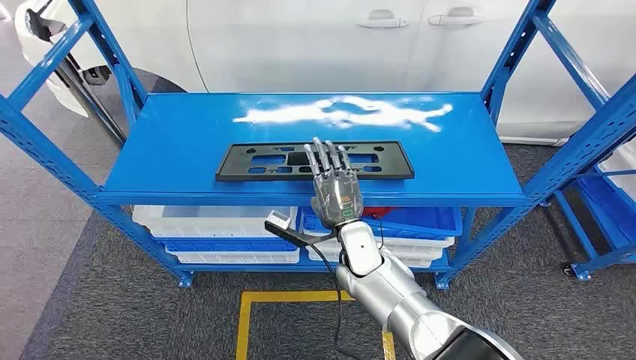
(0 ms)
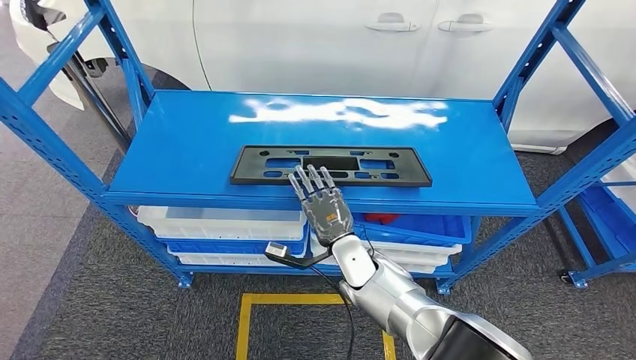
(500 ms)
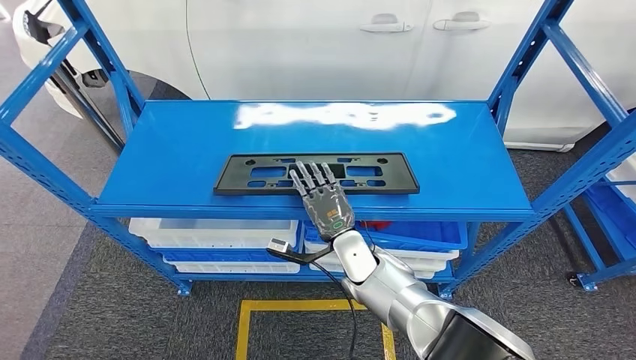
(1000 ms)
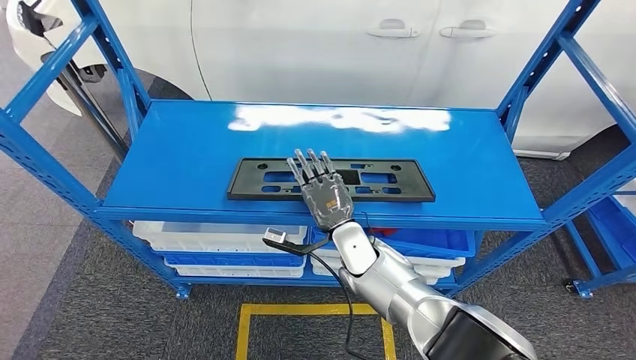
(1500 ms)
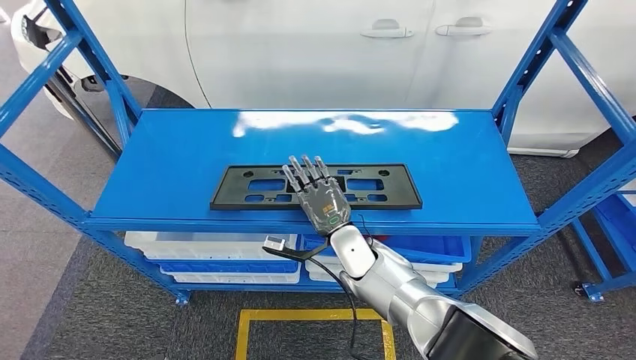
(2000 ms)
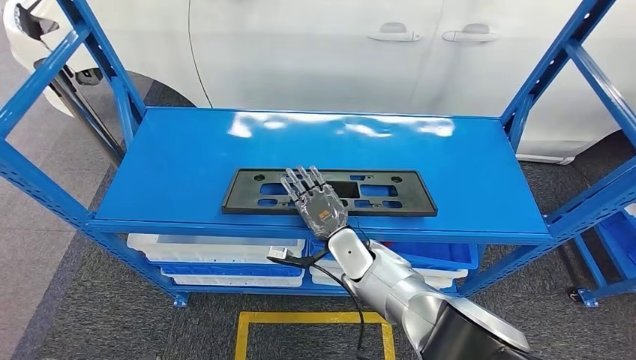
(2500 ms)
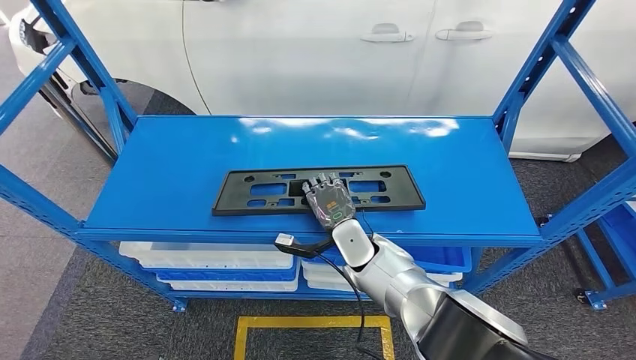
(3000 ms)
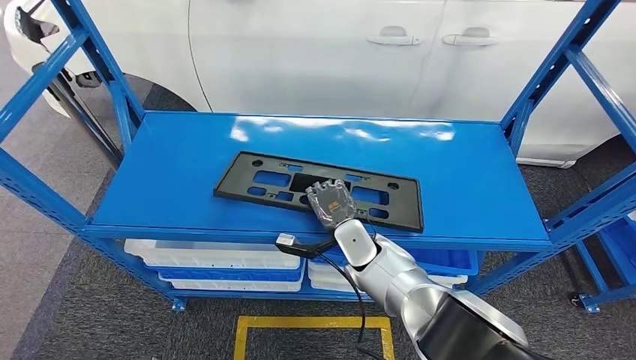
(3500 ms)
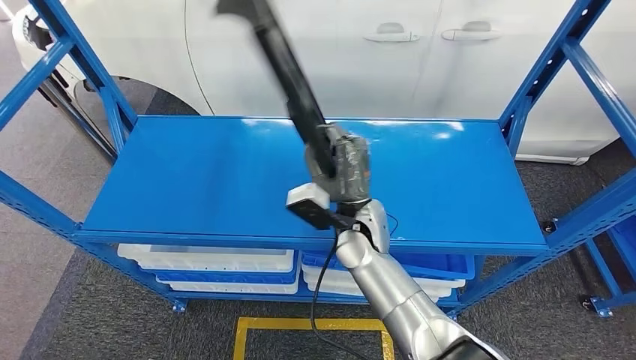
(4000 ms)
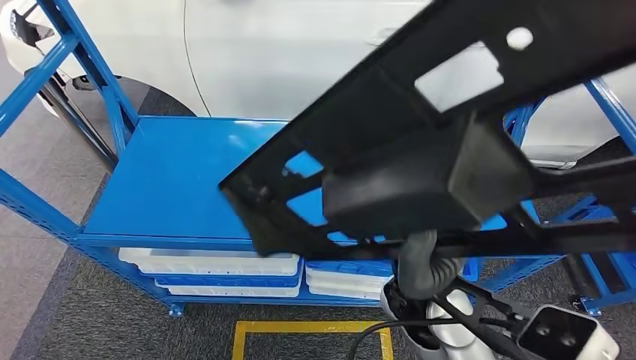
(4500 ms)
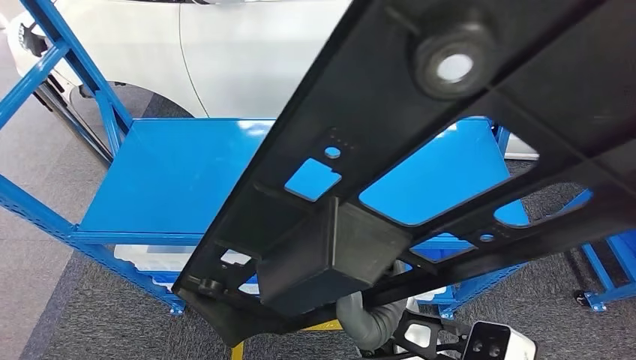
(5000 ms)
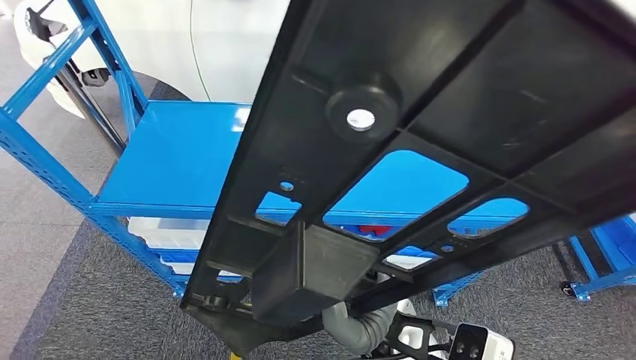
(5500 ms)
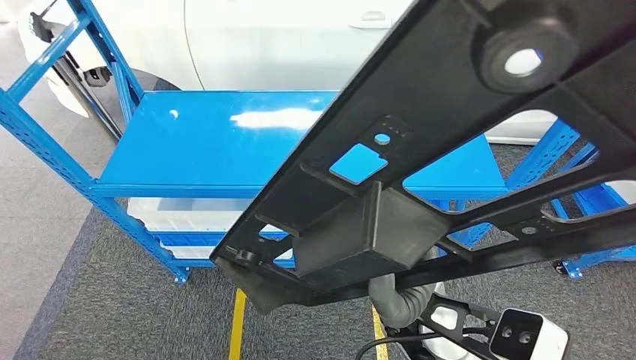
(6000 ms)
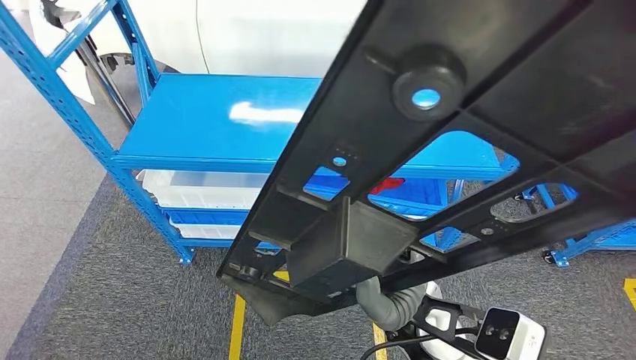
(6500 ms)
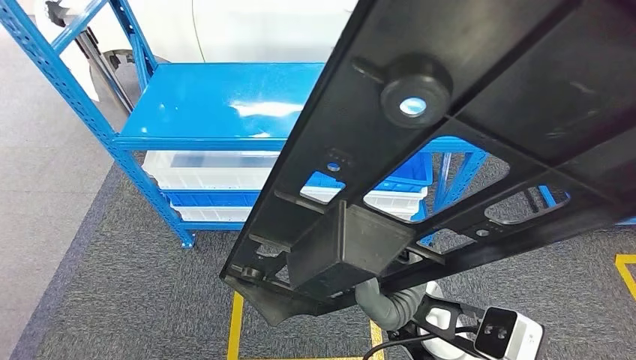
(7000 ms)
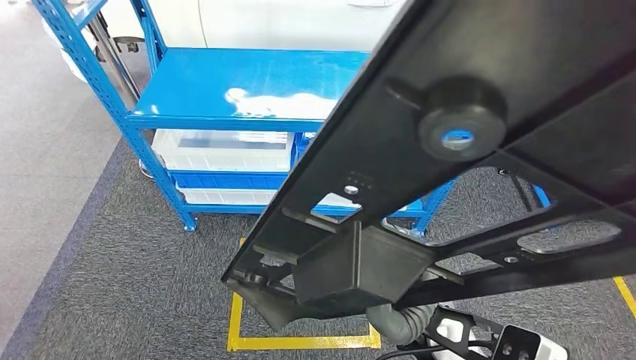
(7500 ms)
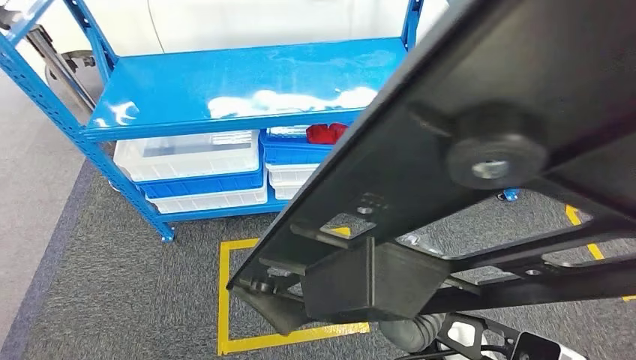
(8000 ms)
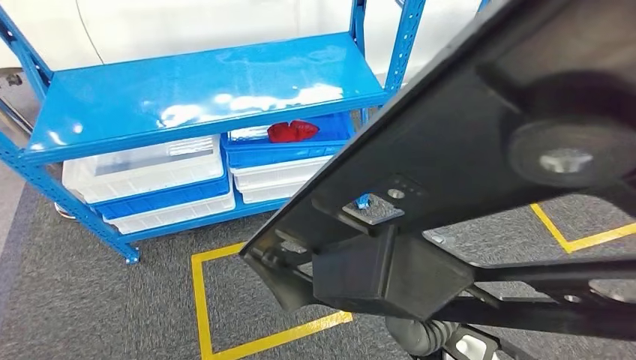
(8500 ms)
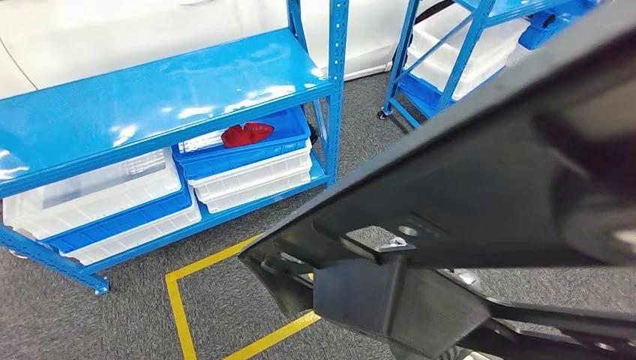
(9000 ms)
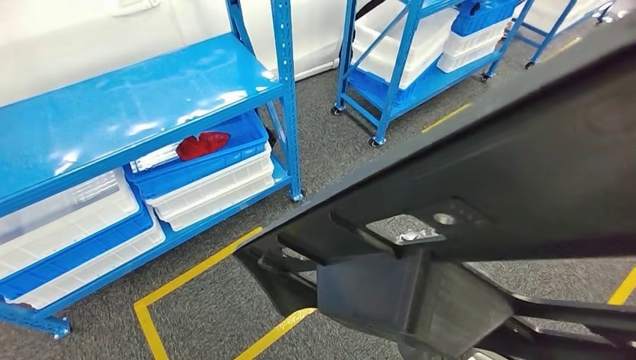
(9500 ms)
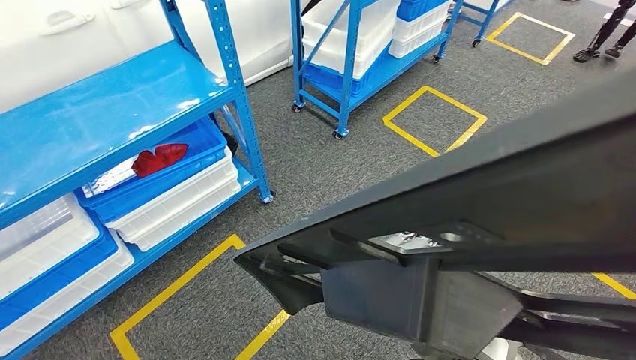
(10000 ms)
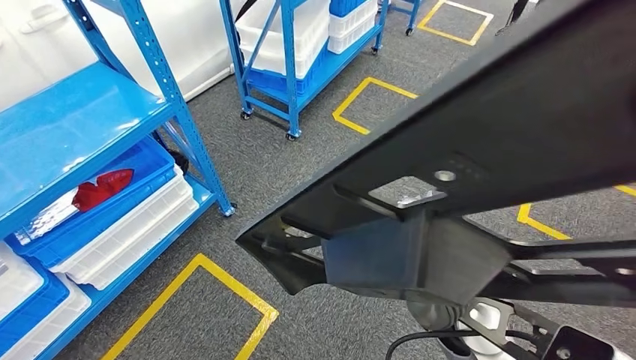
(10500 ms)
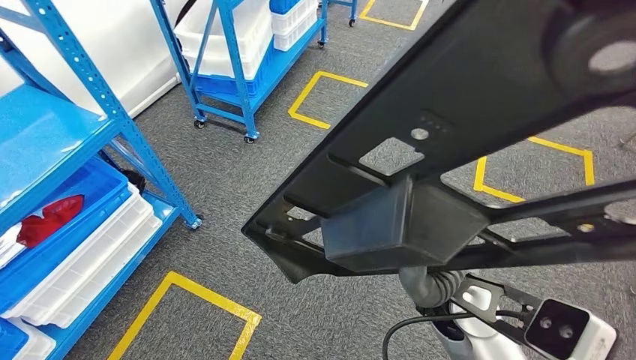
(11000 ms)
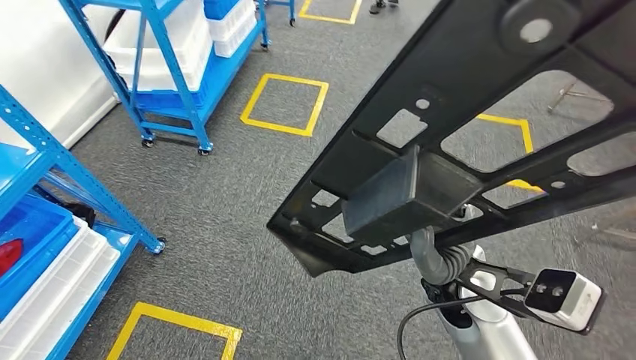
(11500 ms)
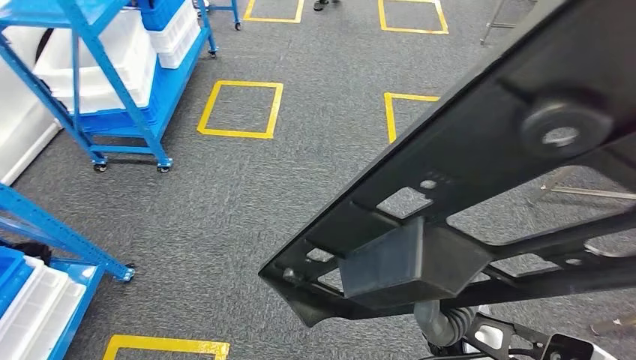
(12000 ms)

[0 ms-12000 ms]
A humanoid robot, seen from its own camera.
Step, 0 ms to 4000 ms: Pick up the large material from the shelf.

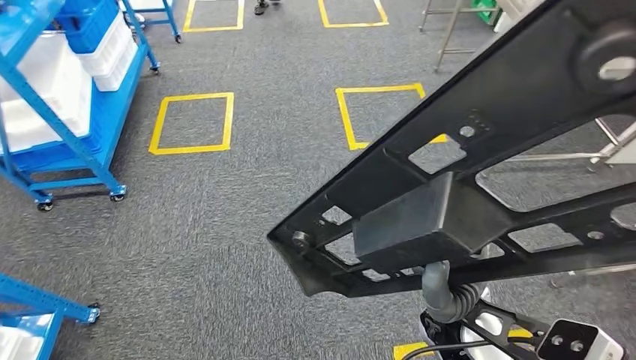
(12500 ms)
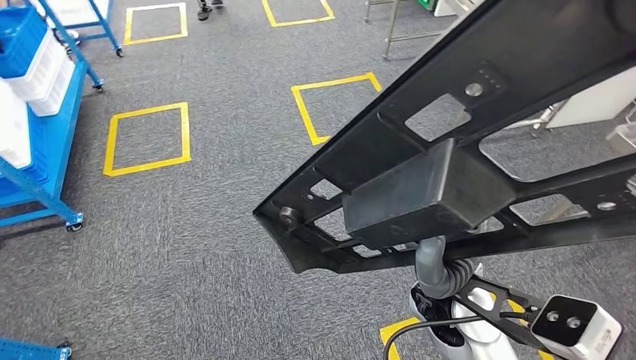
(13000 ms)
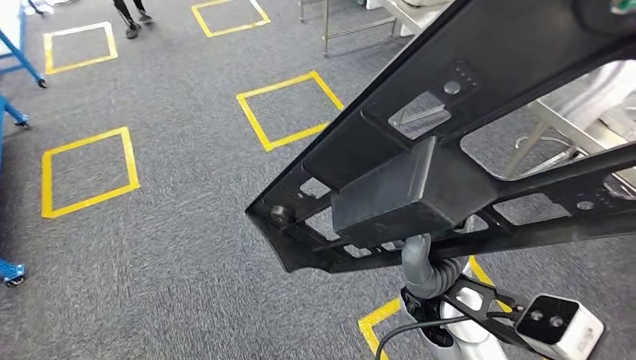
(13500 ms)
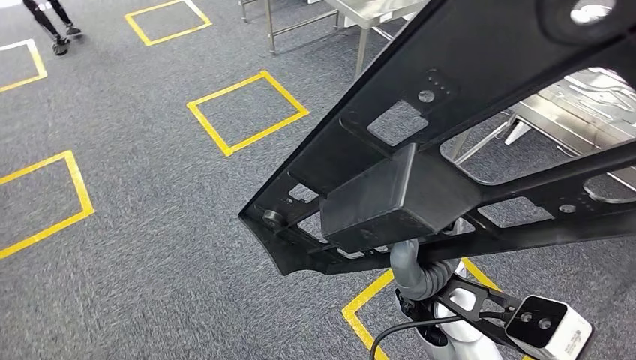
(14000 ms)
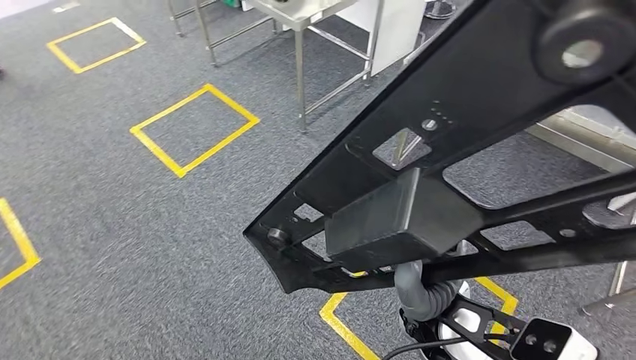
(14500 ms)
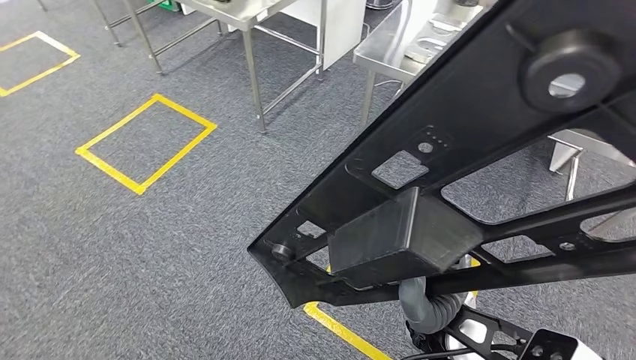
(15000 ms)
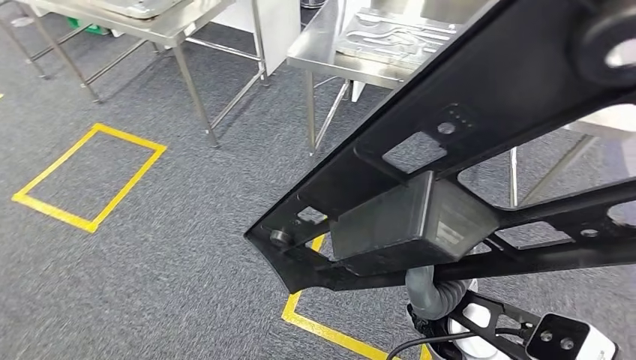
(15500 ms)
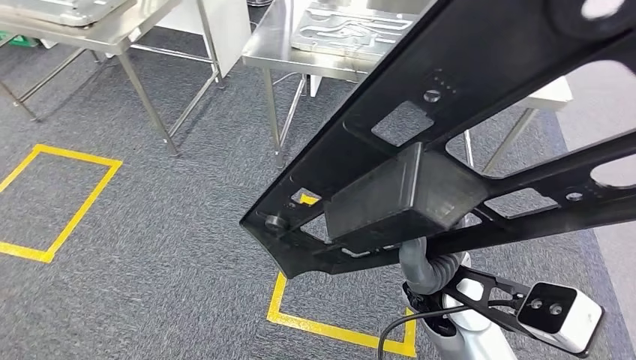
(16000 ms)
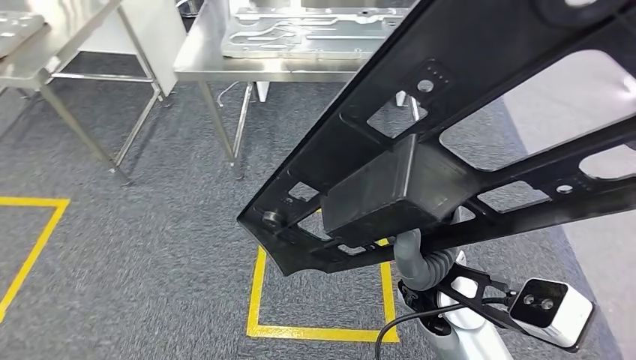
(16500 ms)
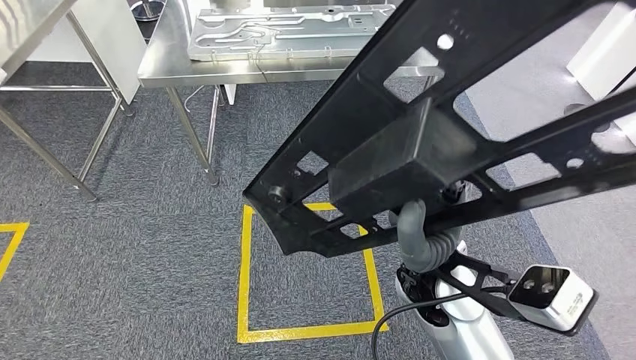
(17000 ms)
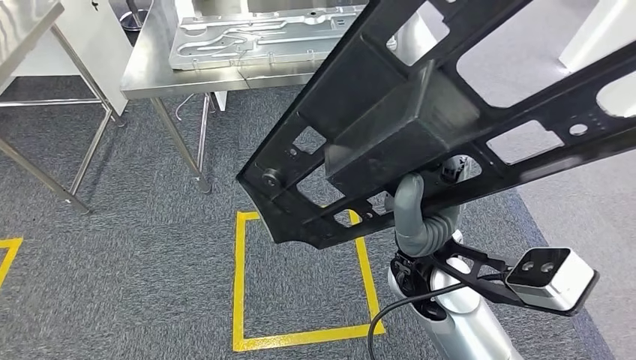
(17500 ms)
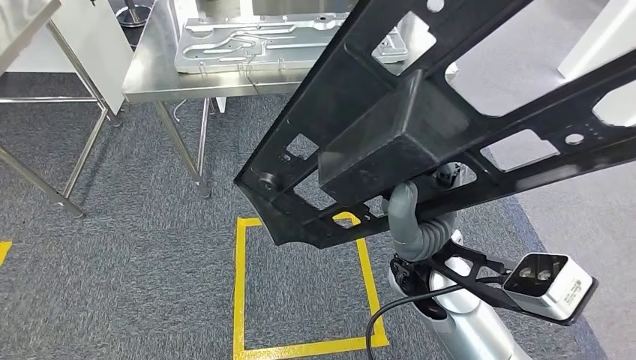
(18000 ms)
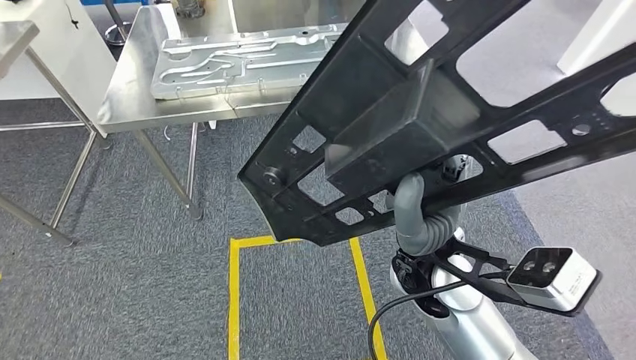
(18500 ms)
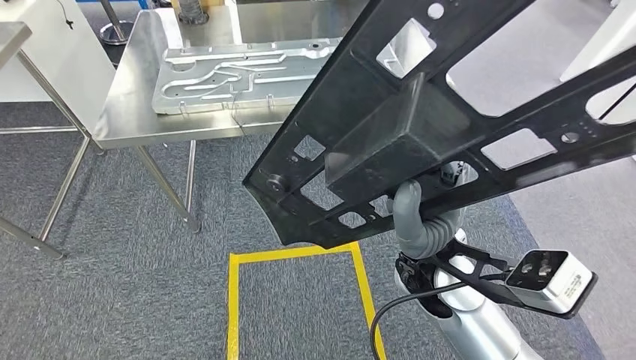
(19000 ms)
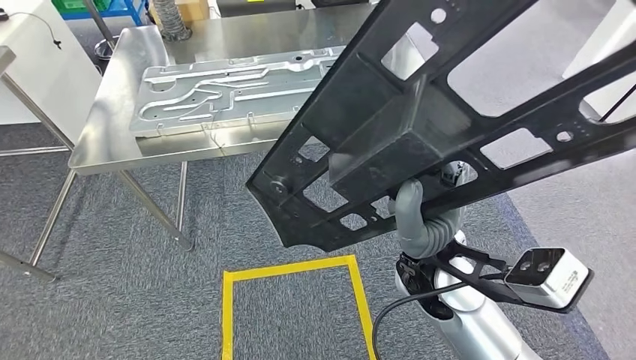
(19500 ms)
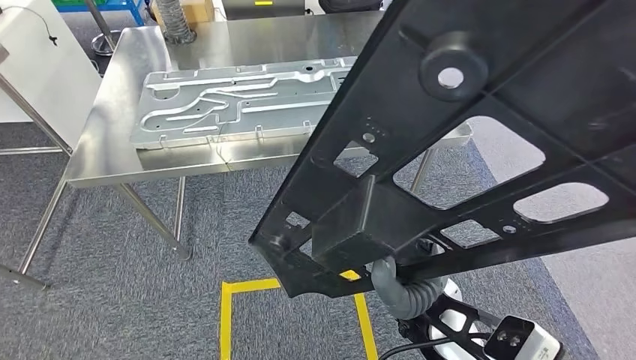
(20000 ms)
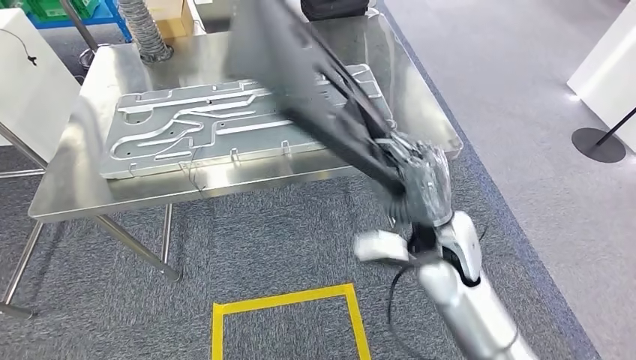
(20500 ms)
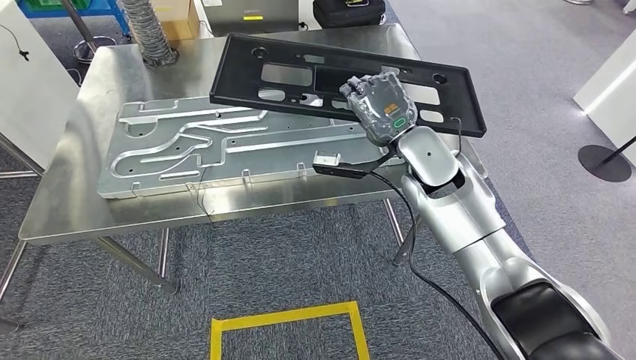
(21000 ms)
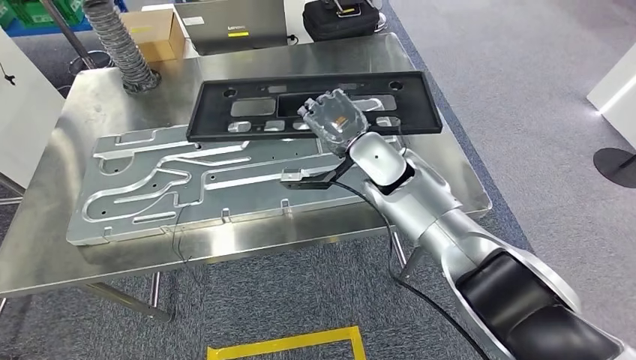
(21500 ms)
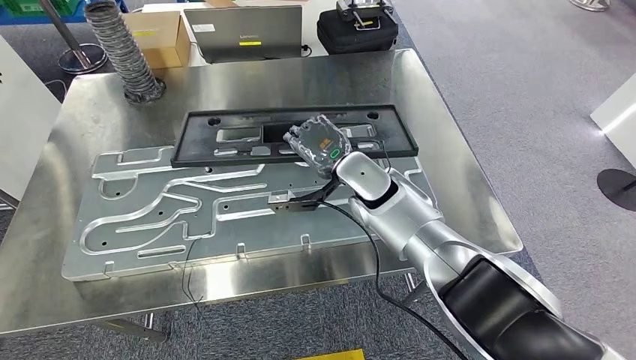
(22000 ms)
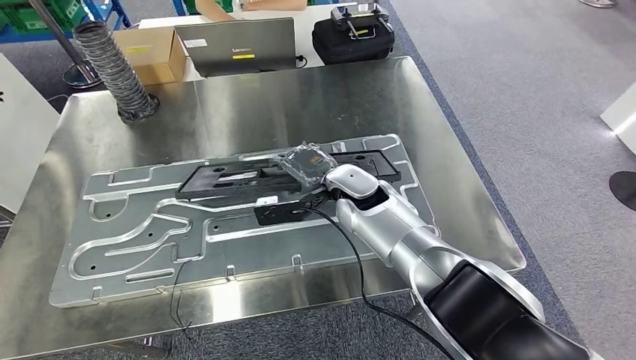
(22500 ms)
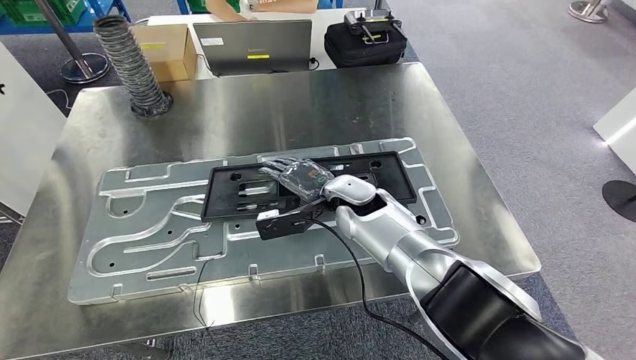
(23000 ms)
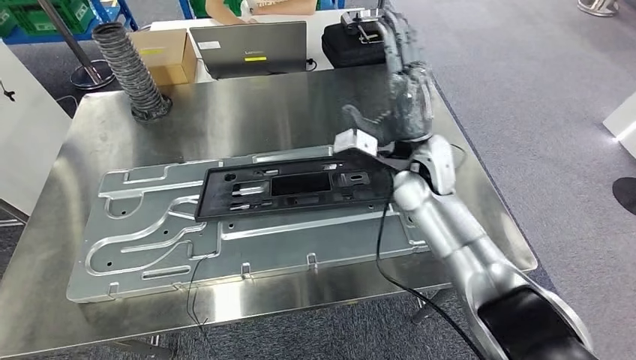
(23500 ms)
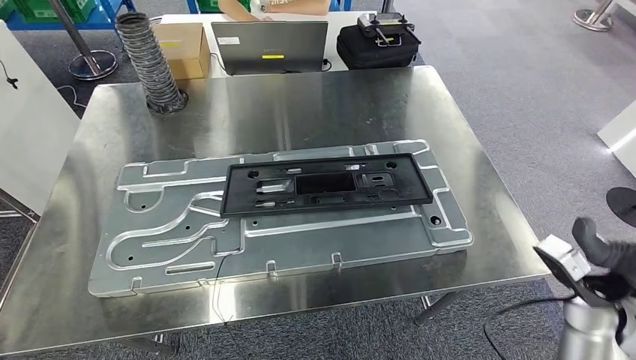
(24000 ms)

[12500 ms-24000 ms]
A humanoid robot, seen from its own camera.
Step, 12500 ms to 20500 ms: Move the large material to the front of the workbench.
